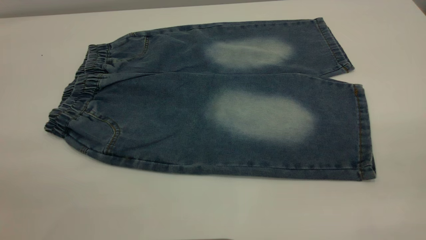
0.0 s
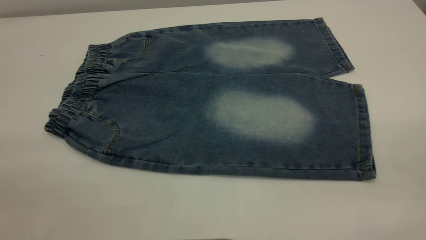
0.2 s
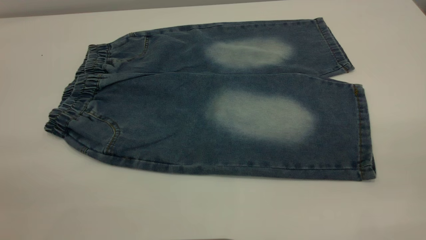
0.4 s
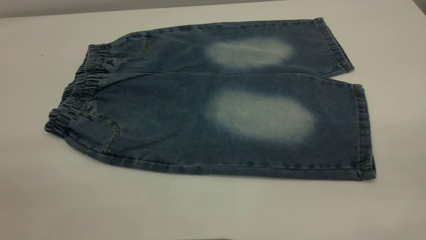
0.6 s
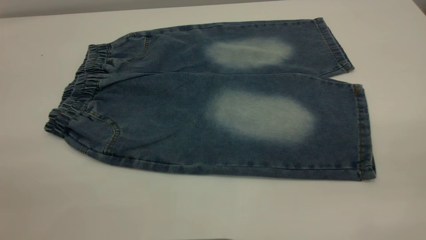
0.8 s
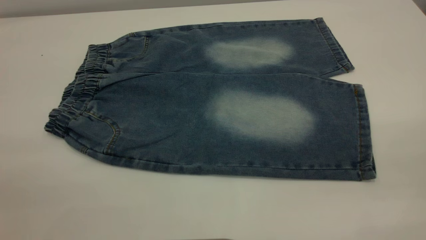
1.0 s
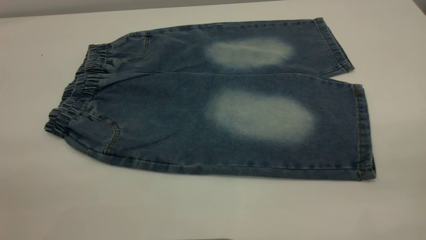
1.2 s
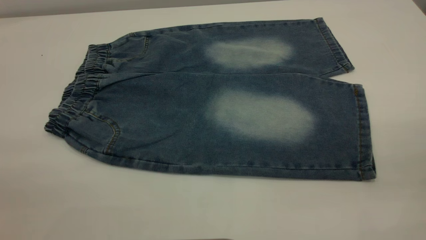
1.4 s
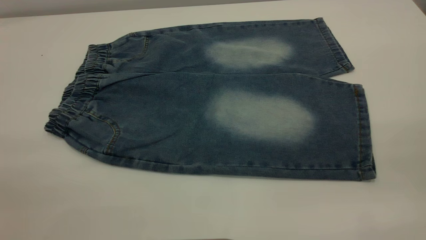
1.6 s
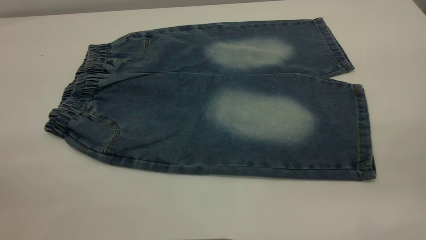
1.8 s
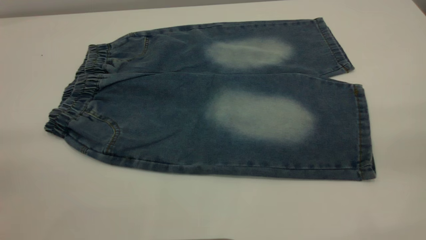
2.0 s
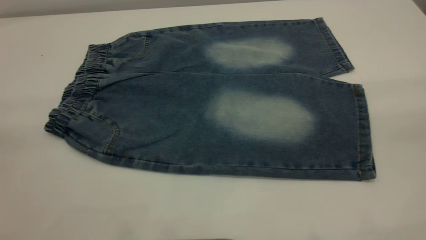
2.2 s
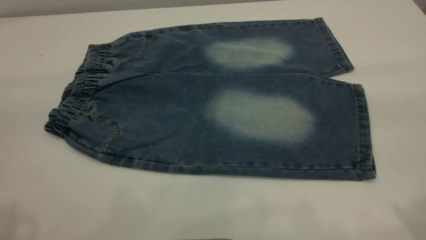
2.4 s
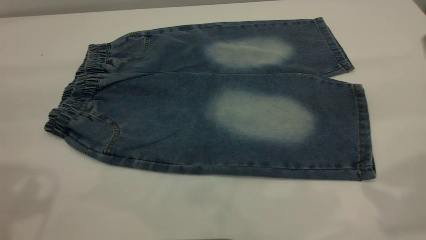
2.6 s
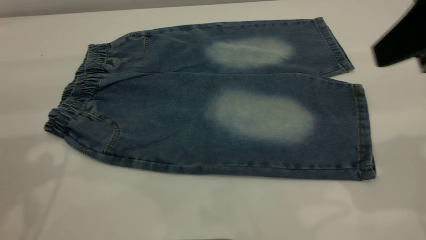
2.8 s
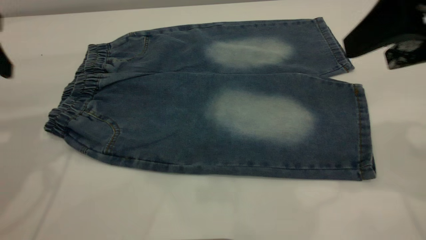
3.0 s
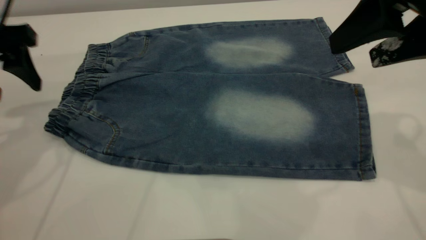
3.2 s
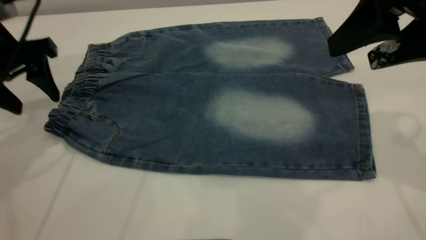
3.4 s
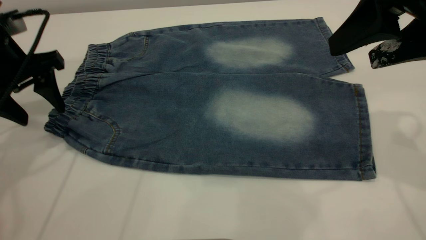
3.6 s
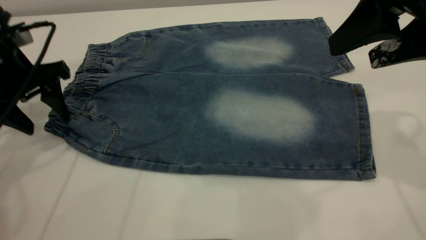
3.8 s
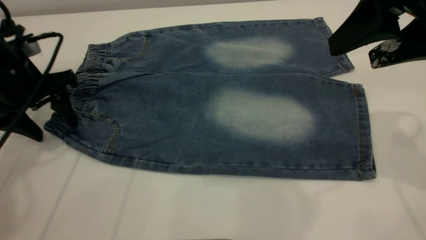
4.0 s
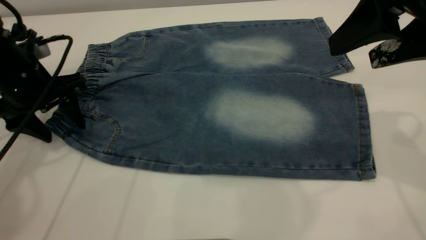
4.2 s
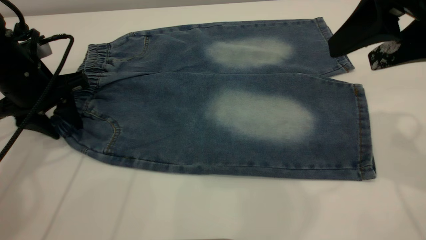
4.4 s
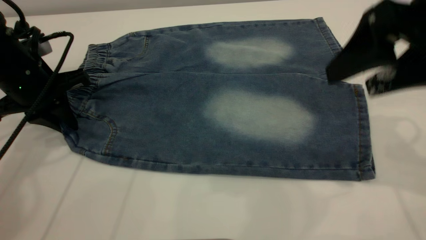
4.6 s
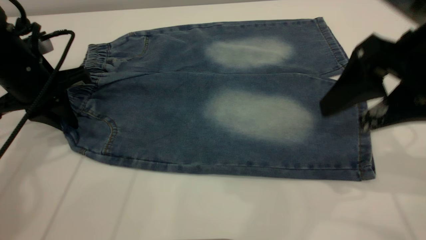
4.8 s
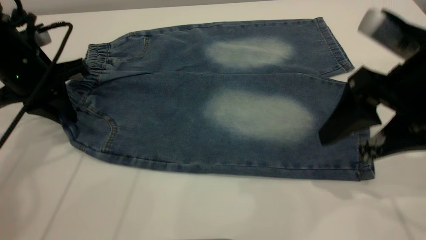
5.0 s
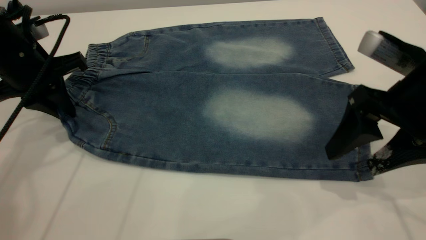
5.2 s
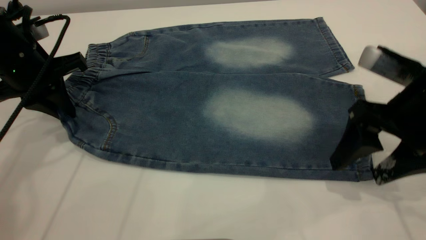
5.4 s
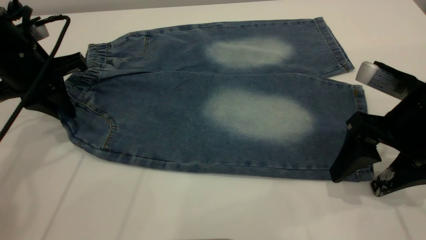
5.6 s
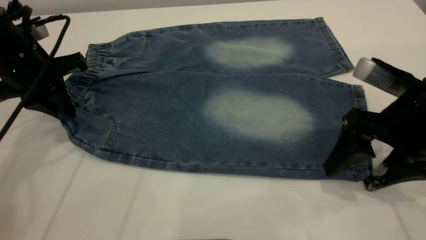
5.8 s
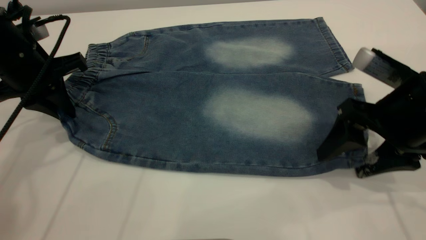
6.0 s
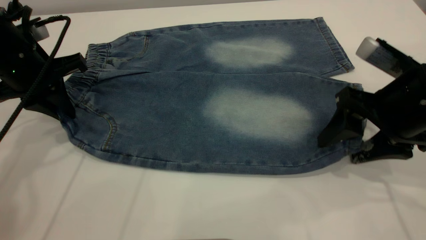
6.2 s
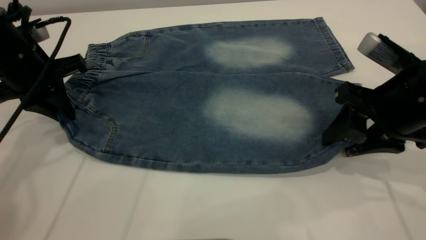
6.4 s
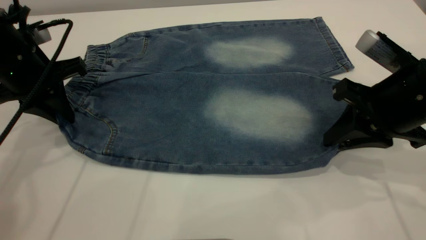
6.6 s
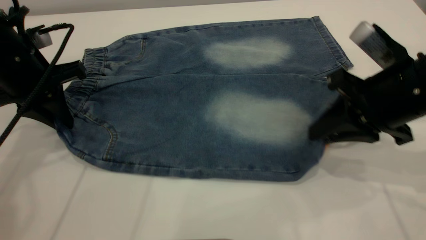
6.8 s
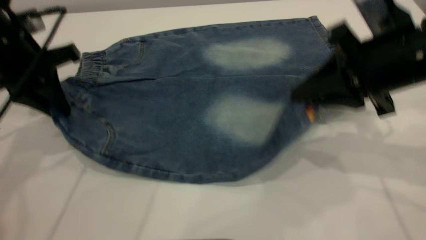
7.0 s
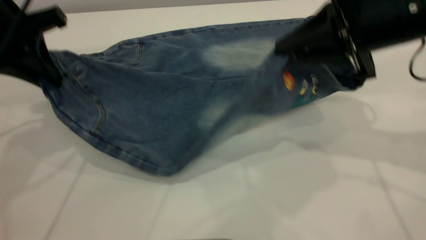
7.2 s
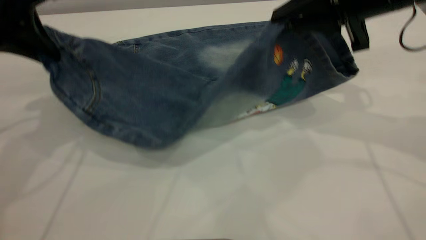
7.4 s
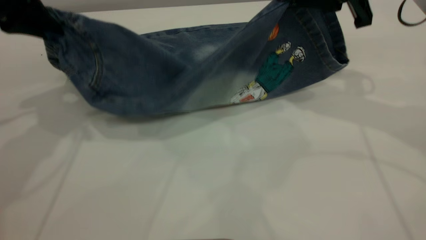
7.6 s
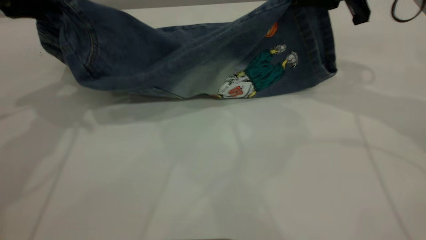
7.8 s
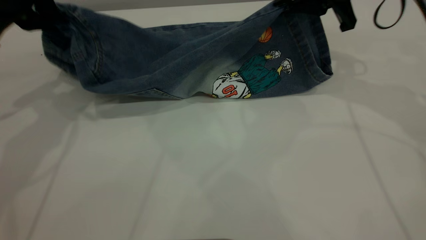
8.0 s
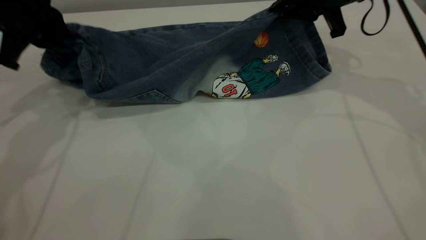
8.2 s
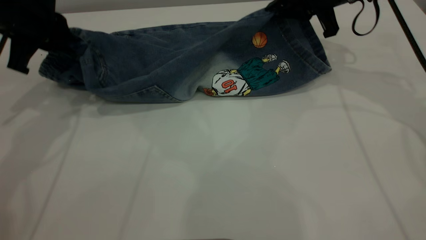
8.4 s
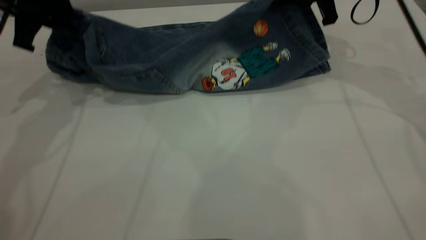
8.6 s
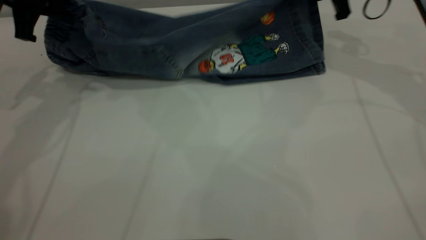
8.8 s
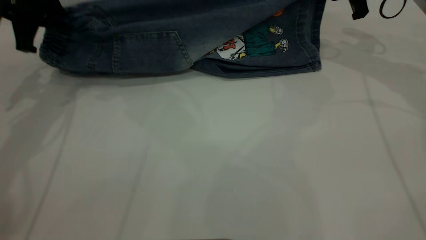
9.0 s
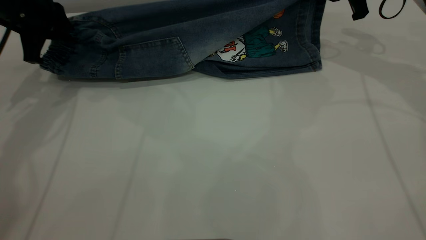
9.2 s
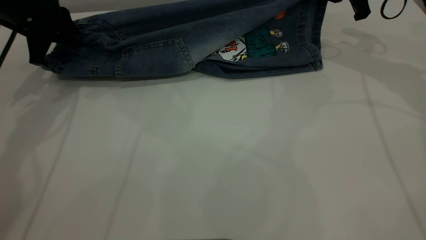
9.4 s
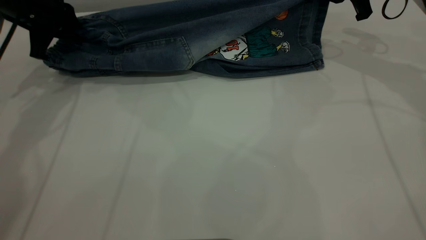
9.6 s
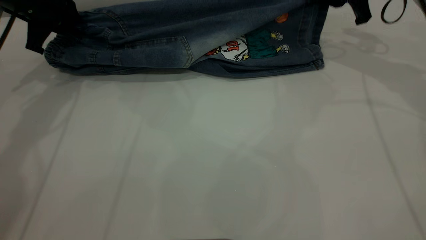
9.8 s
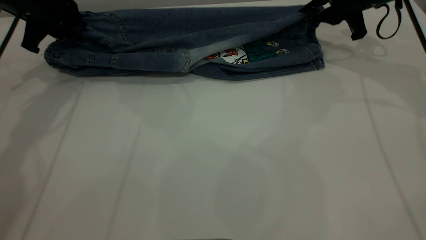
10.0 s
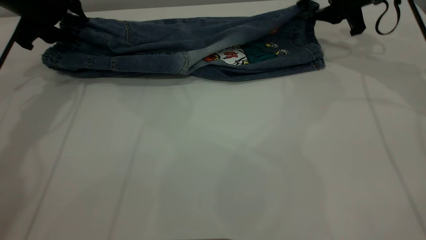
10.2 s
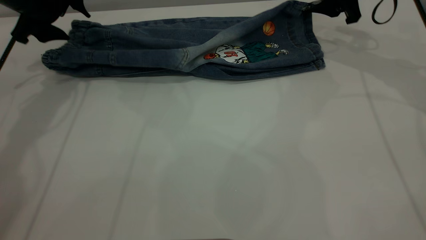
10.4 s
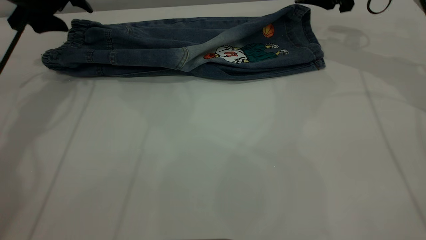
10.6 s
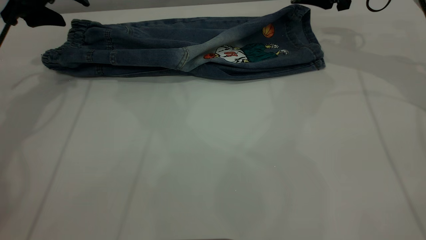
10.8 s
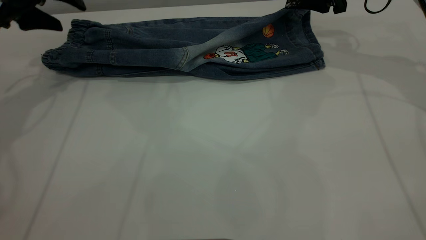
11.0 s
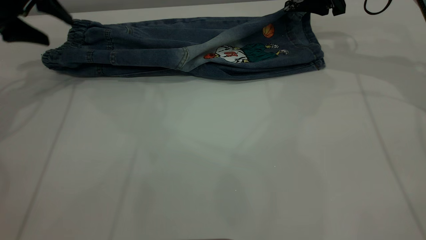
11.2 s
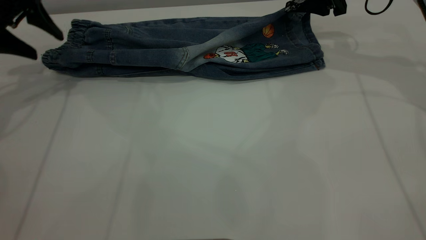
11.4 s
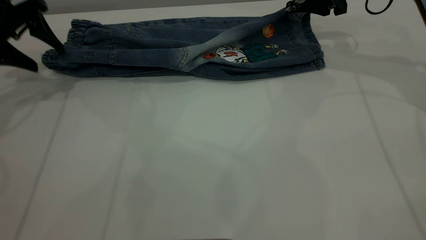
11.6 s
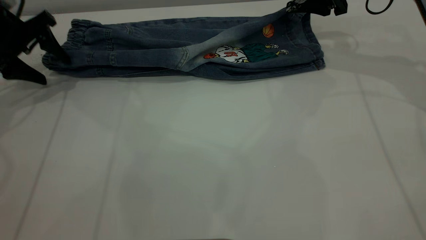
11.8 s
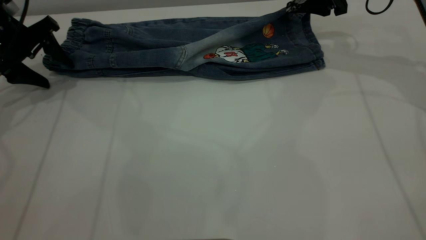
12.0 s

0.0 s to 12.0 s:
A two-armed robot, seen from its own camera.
Step, 0.0 to 11.2 s: Fold the bottom of the pants upward.
0.0 to 1.6 s: Both grippers stay about where they are.
1.6 to 3.0 s: Both grippers move forward, roughly 25 cm.
3.0 to 4.4 s: The left gripper travels downward and forward by about 15 cm, and closes its fingers.
4.4 to 6.0 s: The right gripper heads downward, covering some 15 cm. Meanwhile the left gripper closes its fingers.
6.0 to 7.6 s: The left gripper moves upward, approximately 10 cm, while the right gripper travels forward and upward by about 15 cm, and closes up.
7.6 to 9.0 s: The right gripper is displaced forward and to the right by approximately 10 cm. The left gripper goes about 10 cm forward and downward.
9.0 to 10.4 s: The left gripper opens its fingers. Meanwhile the right gripper opens up.
10.4 to 12.0 s: The left gripper heads to the left, covering approximately 5 cm.

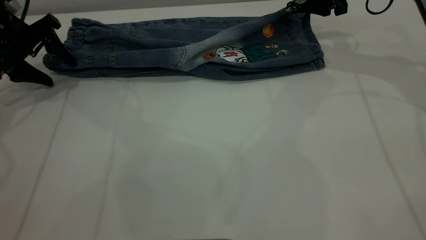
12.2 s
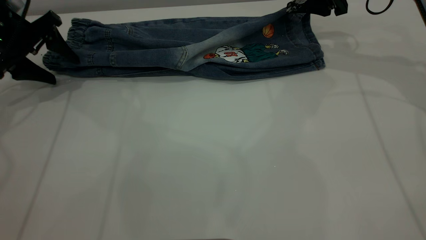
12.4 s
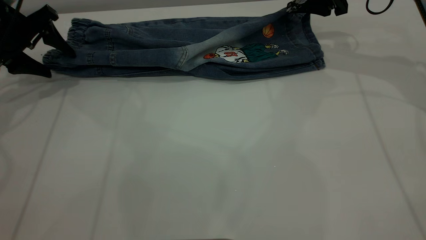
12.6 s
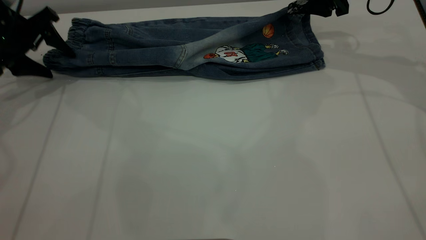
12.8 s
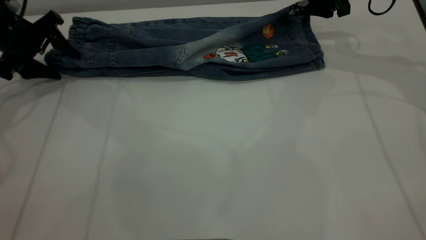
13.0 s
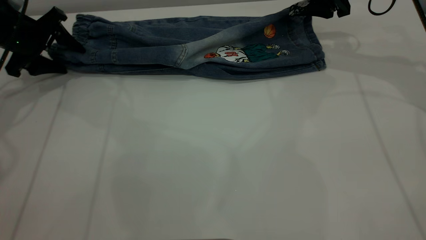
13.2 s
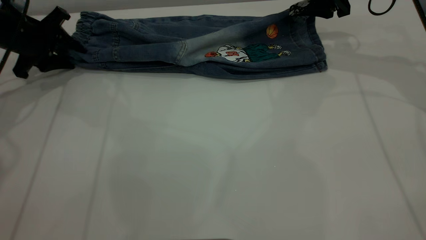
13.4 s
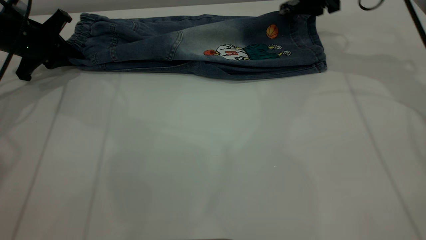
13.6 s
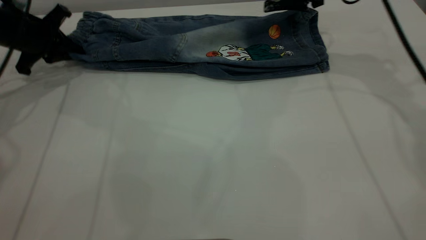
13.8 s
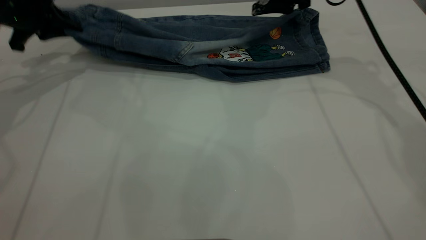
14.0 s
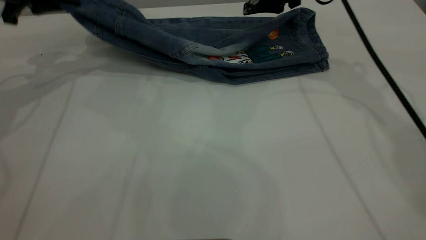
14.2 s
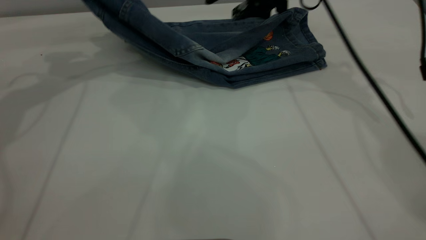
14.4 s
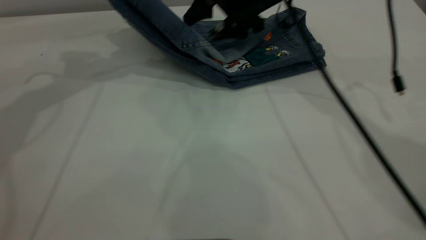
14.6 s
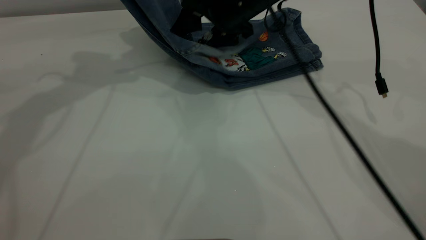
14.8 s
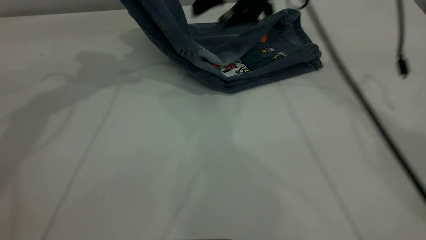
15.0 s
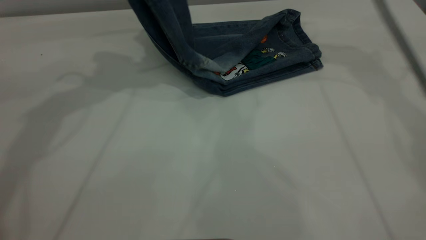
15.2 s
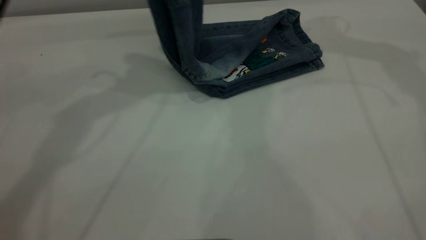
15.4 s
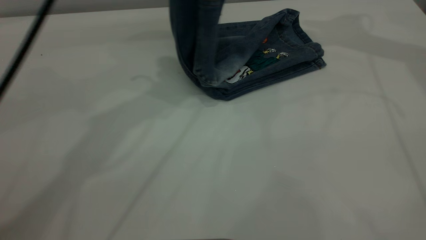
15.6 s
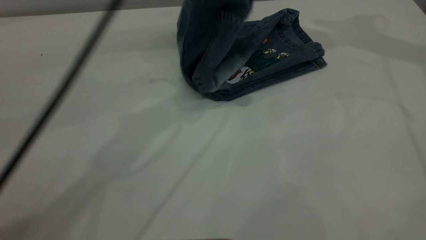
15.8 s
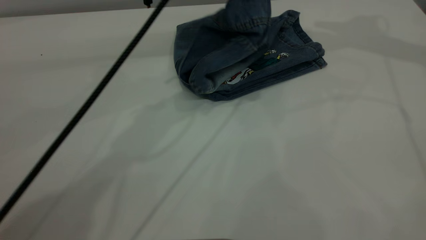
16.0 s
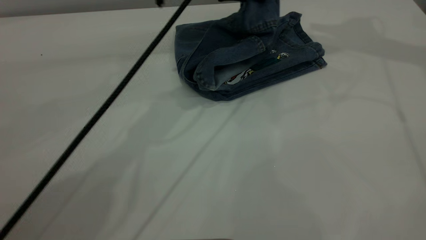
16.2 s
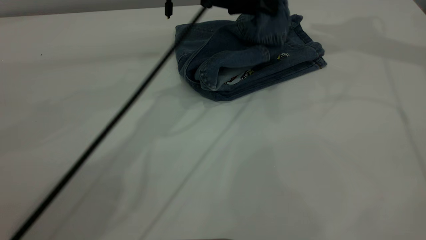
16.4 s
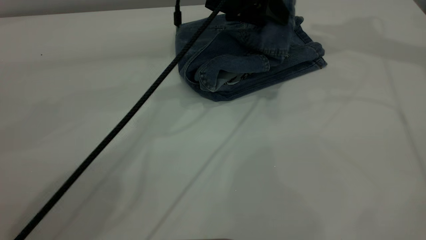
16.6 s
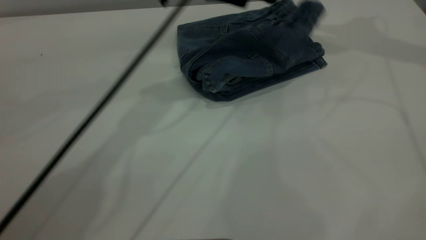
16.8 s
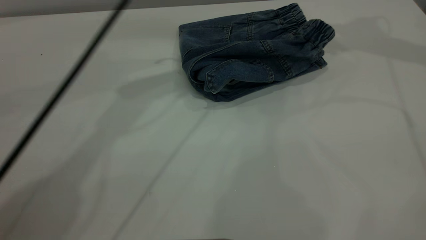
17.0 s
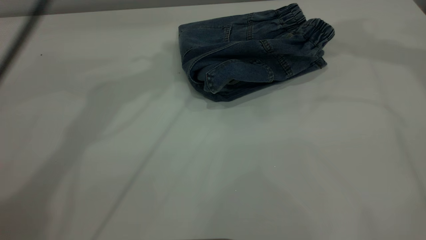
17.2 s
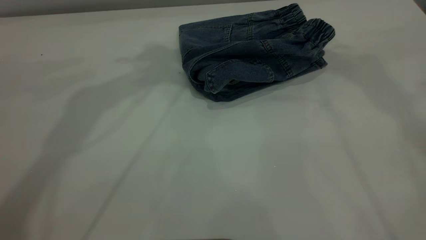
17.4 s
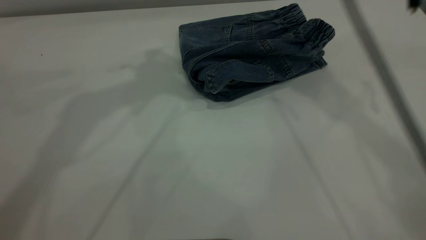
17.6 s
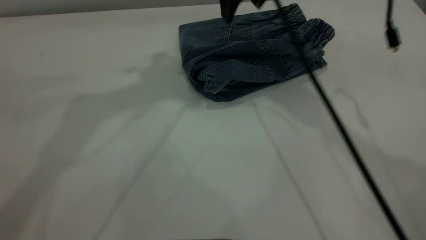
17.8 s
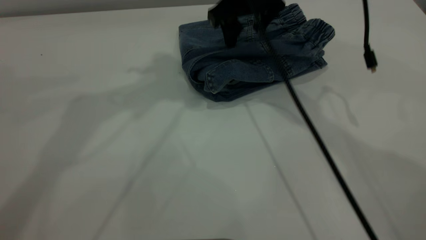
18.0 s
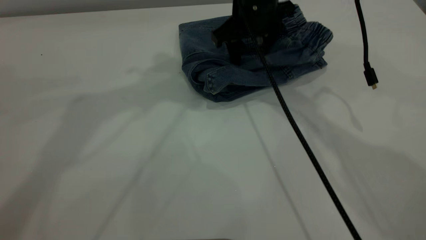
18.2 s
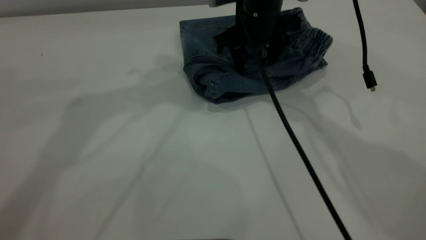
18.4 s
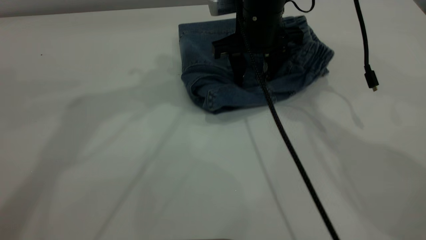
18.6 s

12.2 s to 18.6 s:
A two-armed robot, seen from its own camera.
Step, 12.2 to 17.4 s: Fold the pants from left to right.
12.2 to 13.8 s: The left gripper closes; the right gripper moves to the left, approximately 5 cm.
13.8 to 15.4 s: The right gripper travels upward by approximately 15 cm, and reaches approximately 10 cm to the left, then returns, while the left gripper heads to the right and upward, covering about 25 cm.
15.4 to 17.0 s: The right gripper travels upward and to the right by about 10 cm. Meanwhile the left gripper moves to the right, some 5 cm, and opens up.
17.0 to 18.6 s: The right gripper is displaced downward and to the left by some 30 cm. Meanwhile the left gripper shifts approximately 15 cm upward and backward.
